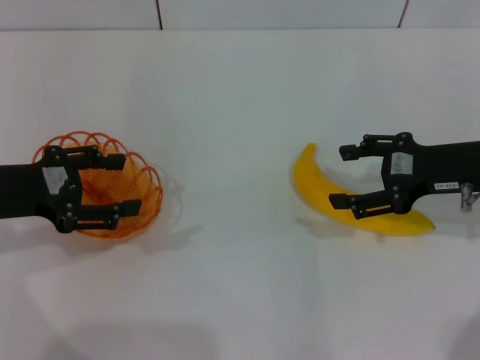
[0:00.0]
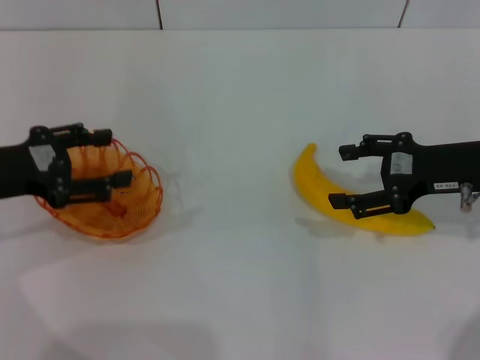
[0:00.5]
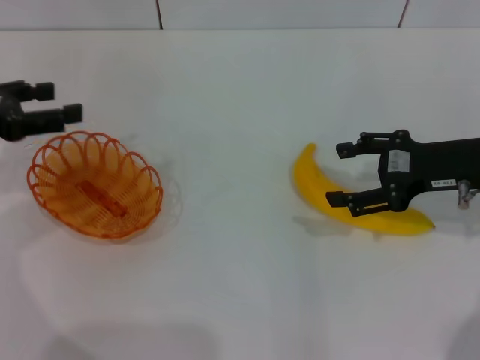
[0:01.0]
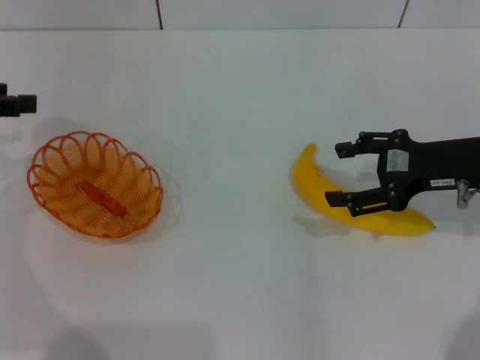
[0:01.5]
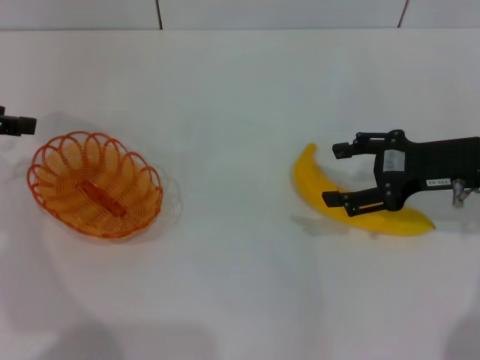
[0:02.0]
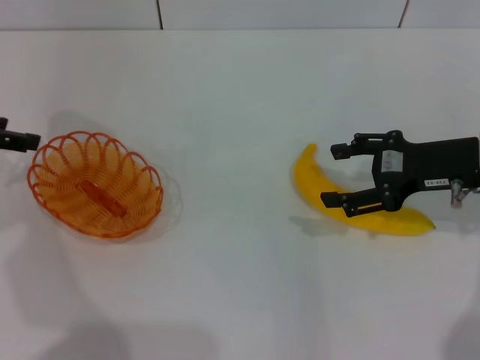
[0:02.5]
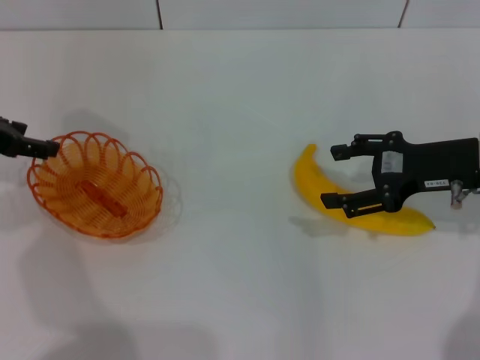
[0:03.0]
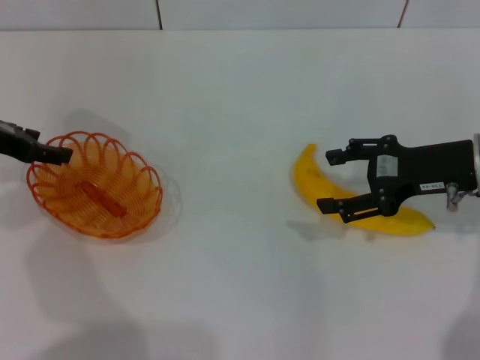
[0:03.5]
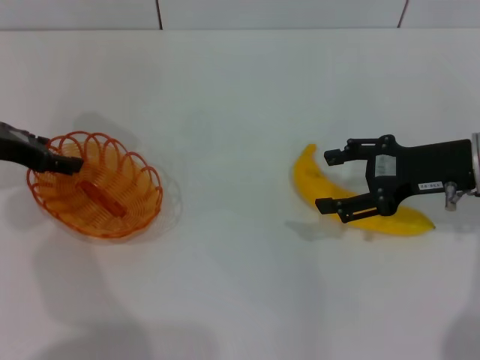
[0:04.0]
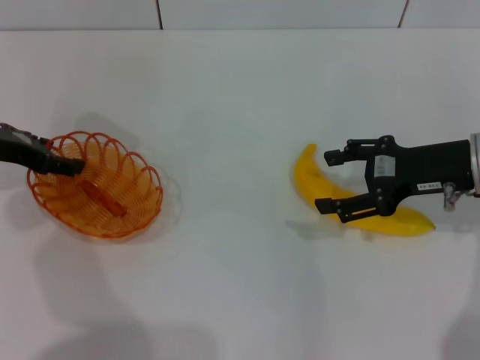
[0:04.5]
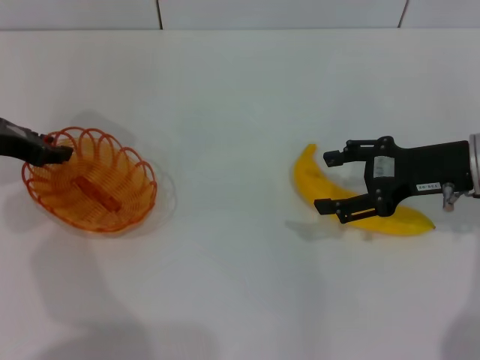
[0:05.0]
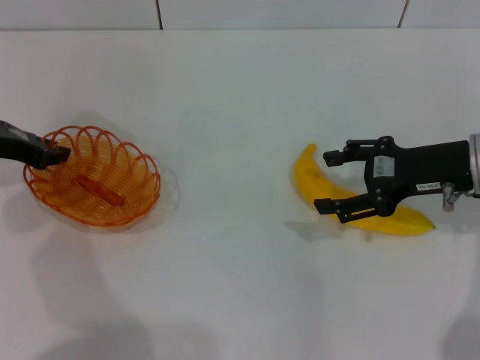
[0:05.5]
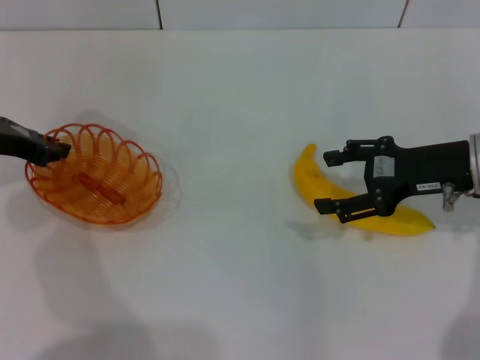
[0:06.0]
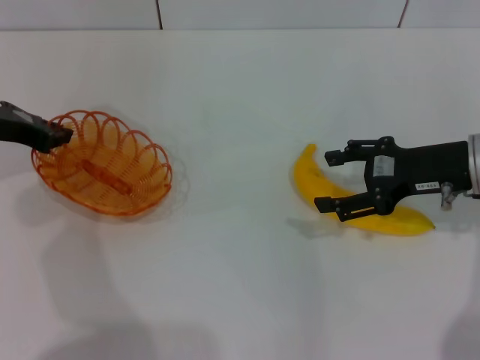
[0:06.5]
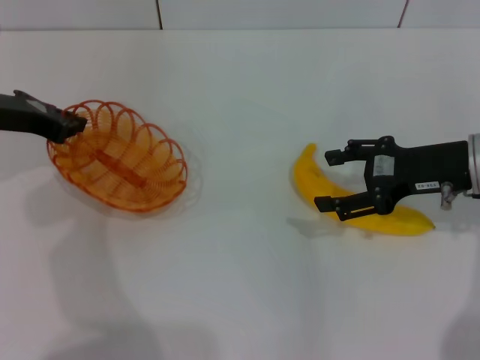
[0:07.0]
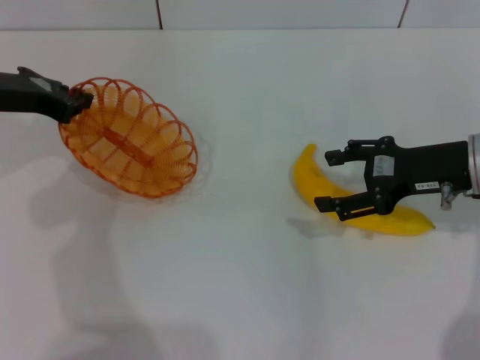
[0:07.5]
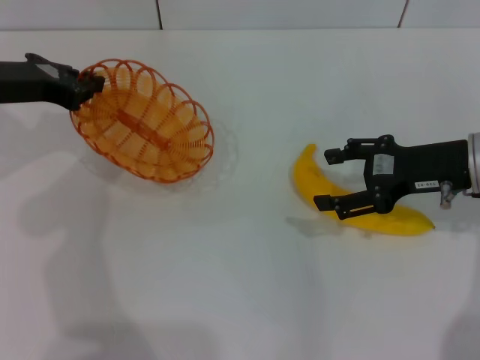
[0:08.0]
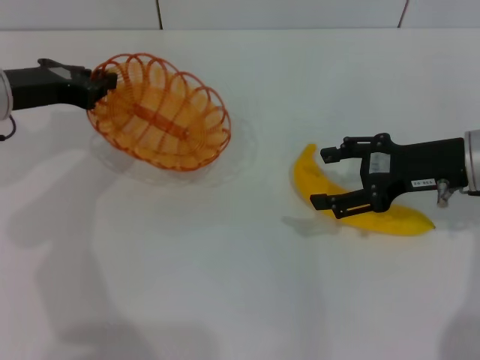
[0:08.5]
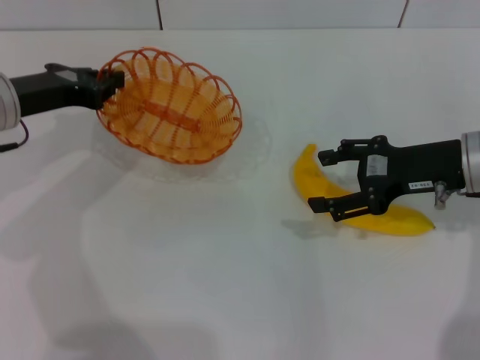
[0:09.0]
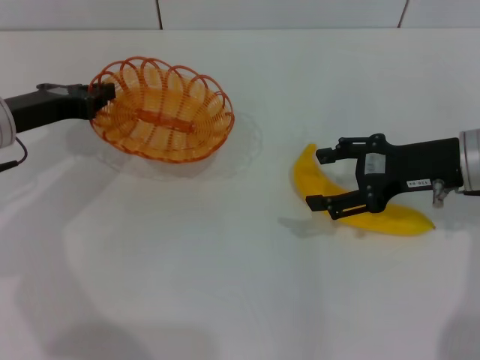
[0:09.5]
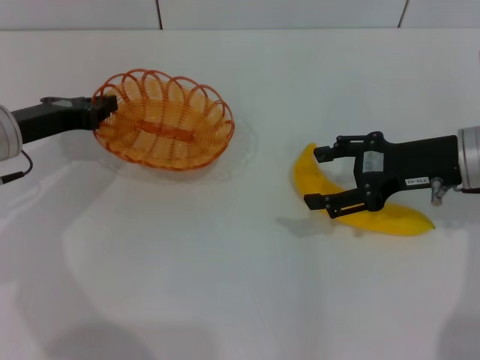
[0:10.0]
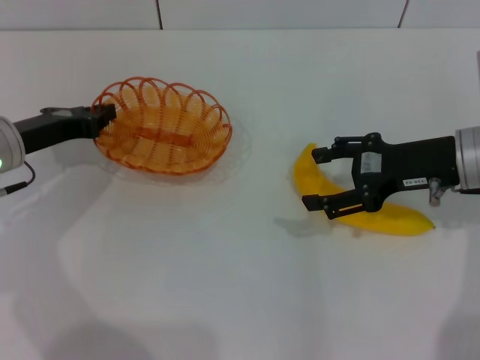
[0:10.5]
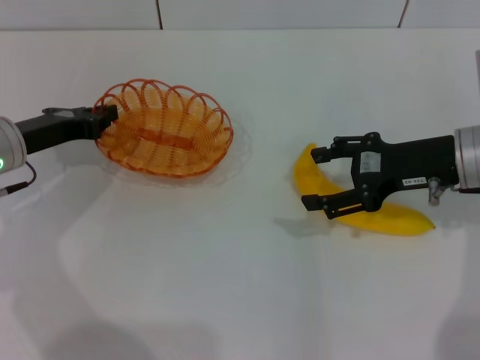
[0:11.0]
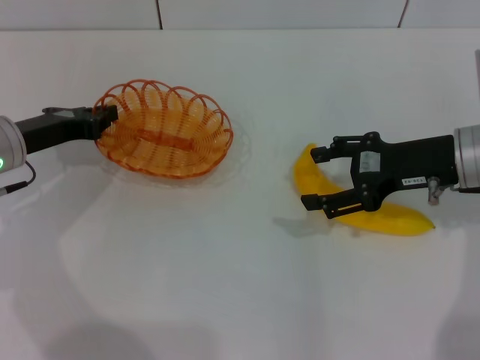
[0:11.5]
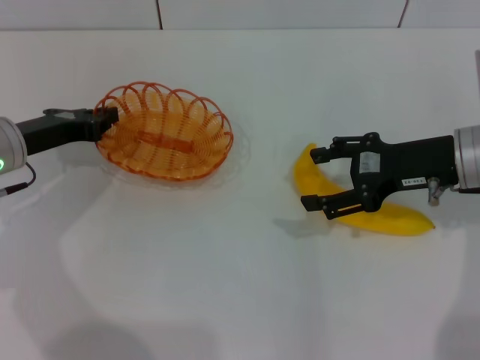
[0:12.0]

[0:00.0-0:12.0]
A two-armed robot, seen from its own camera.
Step, 0:00.0 to 0:05.5: Pick up the basket with the left gripper.
0:00.0 to 0:02.0: The left gripper is displaced upward, to the left and forward by some 10 cm.
0:02.0 to 0:04.0: The left gripper travels downward and to the right by about 10 cm.
0:04.0 to 0:06.0: The left gripper closes up.
0:06.0 to 0:08.0: There are only small adjustments of the grippers.
0:08.0 to 0:10.0: The left gripper moves downward, about 5 cm.
0:10.0 to 0:12.0: There are only small adjustments of the grippers.

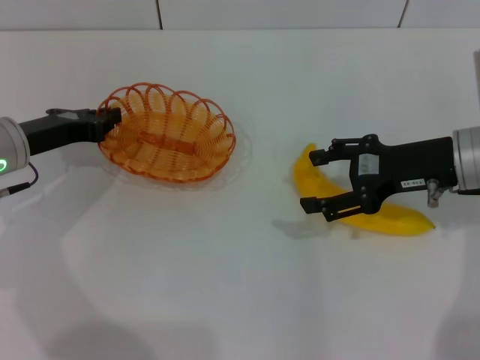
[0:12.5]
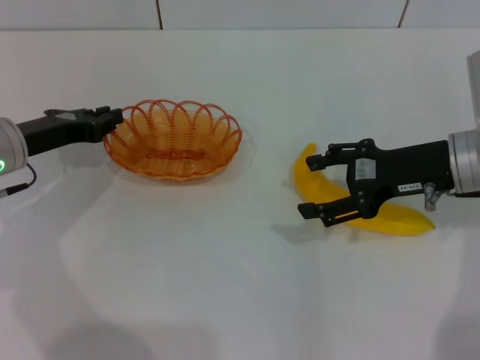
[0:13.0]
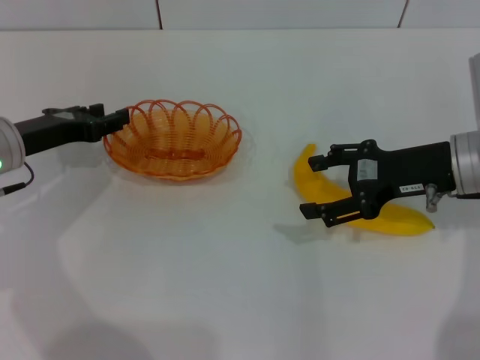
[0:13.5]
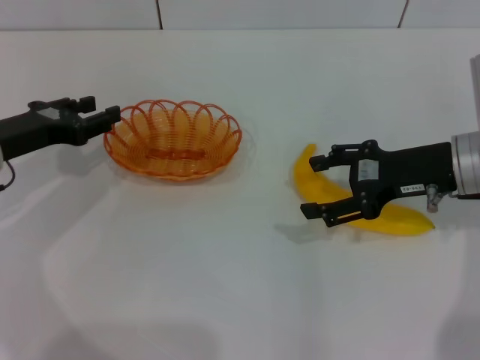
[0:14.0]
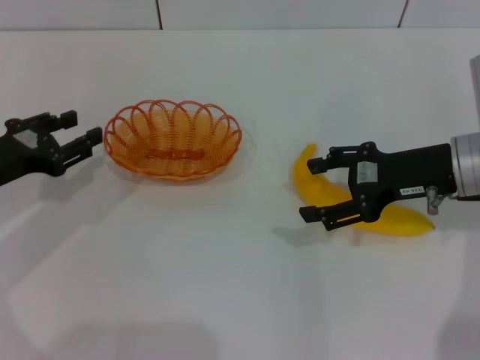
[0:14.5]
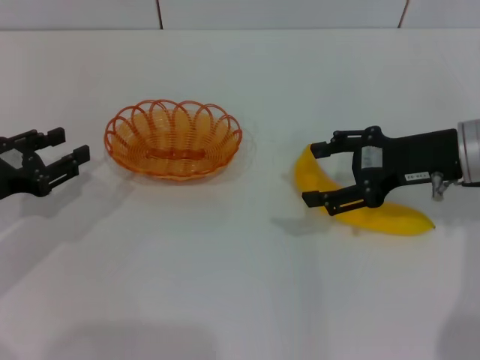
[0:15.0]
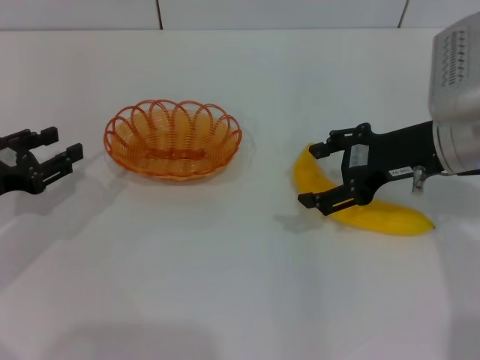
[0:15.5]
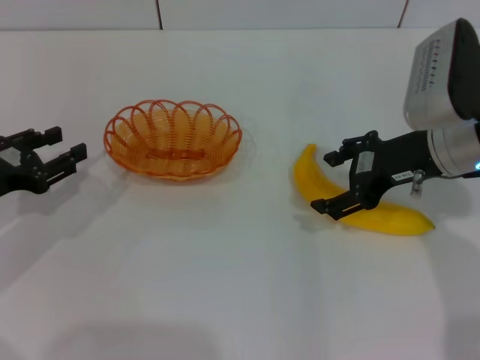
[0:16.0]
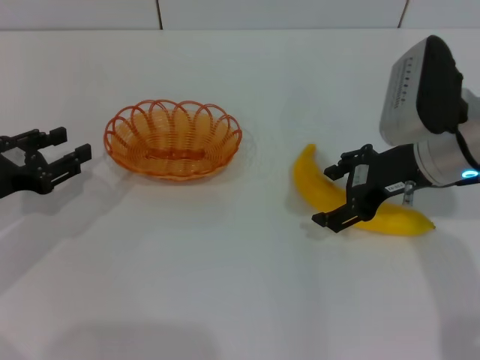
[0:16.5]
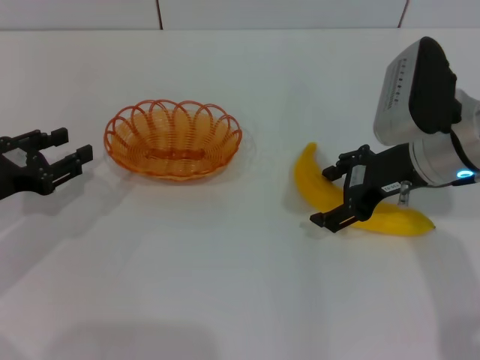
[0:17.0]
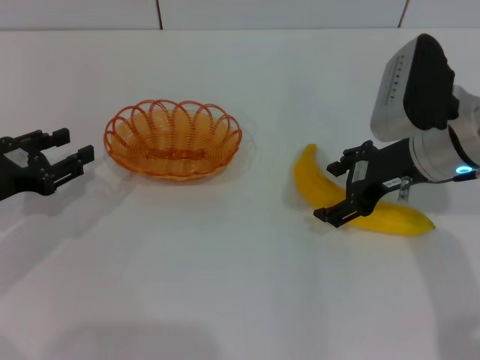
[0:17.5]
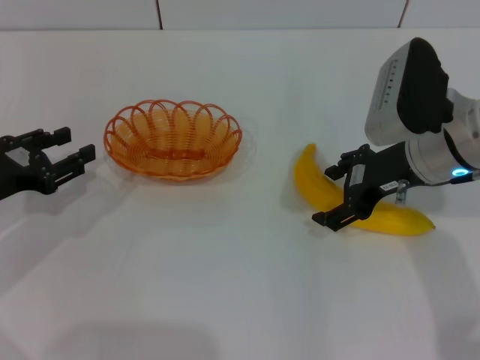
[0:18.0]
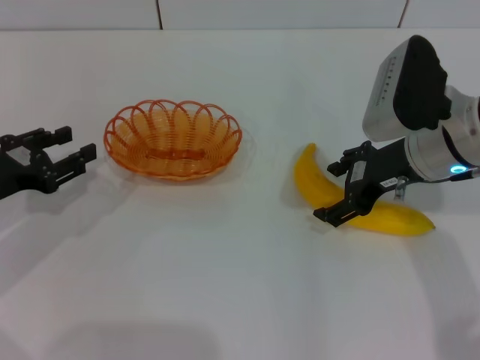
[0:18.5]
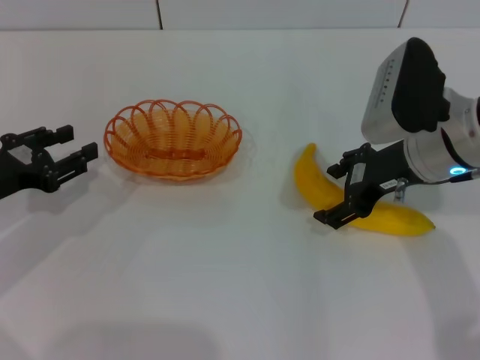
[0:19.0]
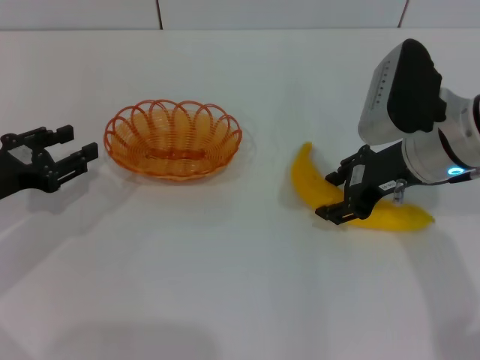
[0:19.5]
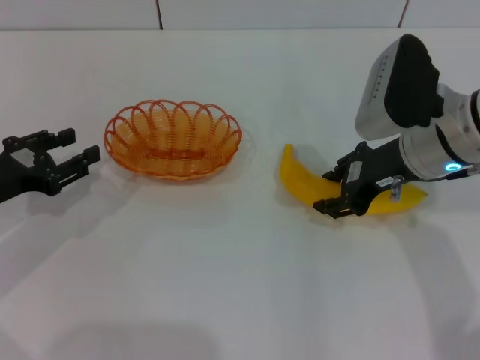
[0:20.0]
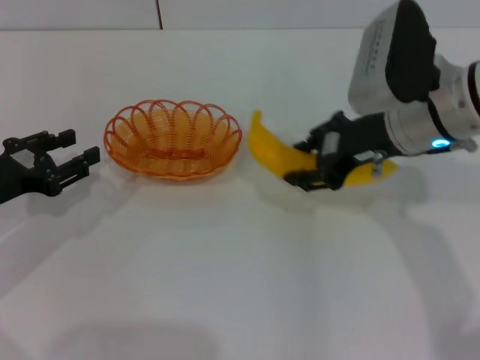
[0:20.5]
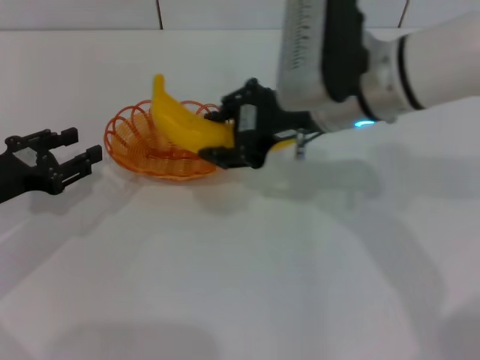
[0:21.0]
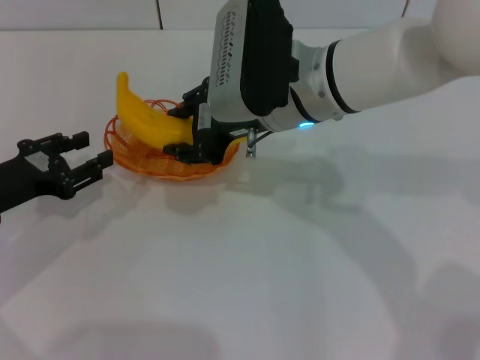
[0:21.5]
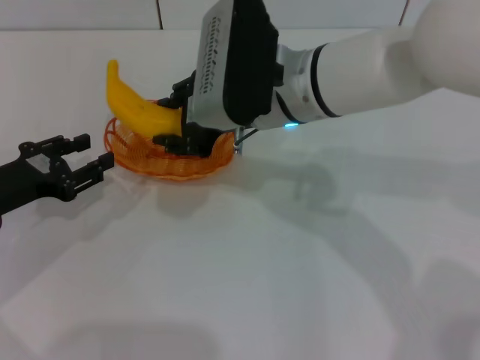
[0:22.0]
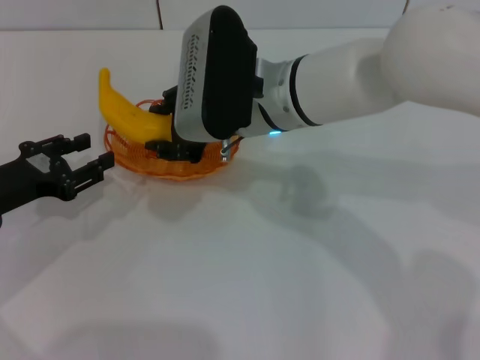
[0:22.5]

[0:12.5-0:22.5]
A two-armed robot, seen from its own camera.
Step, 0:14.0 to 0:20.5: Pick up the banana with the right gripper.
0:12.5 to 0:14.5: The left gripper is displaced backward by roughly 5 cm, and opens its fingers.
0:16.5 to 0:18.5: The two grippers keep their place.
0:18.5 to 0:20.5: The right gripper closes.
0:20.5 to 0:22.5: The right gripper is displaced to the left by roughly 15 cm.

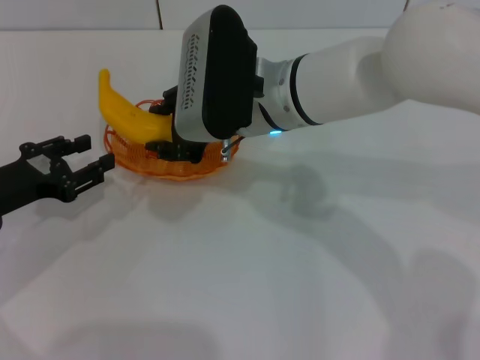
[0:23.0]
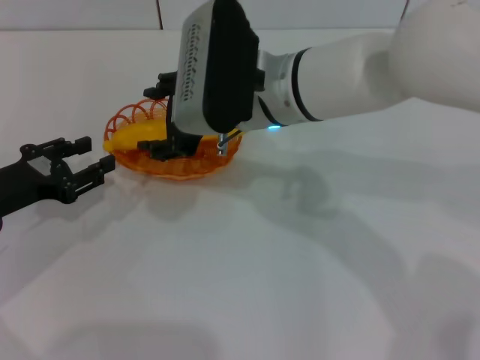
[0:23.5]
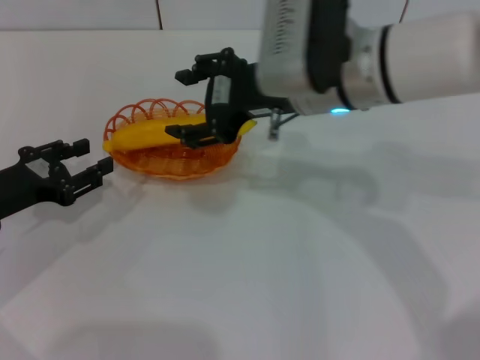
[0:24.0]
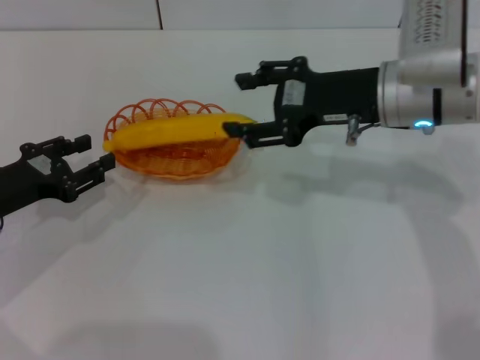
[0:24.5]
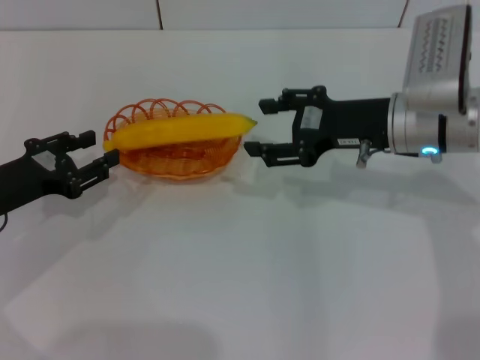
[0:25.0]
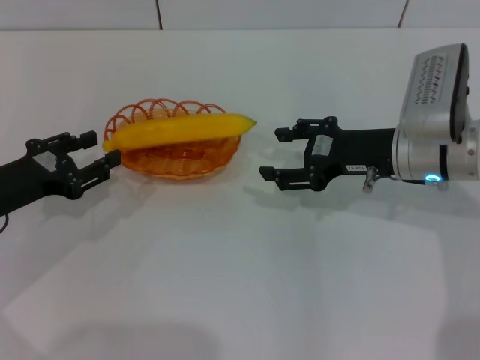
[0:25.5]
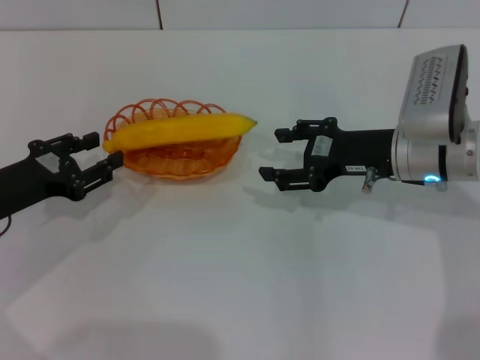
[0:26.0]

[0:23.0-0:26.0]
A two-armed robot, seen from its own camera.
0:23.0 to 0:24.5: The right gripper moves to the right, some 15 cm, and opens up.
0:24.5 to 0:26.0: The right gripper moves downward, roughly 5 cm.

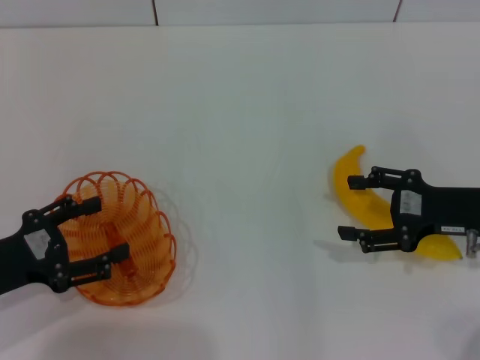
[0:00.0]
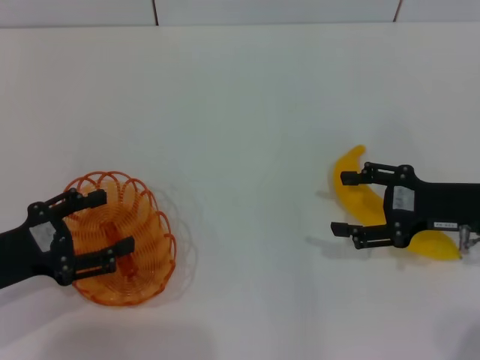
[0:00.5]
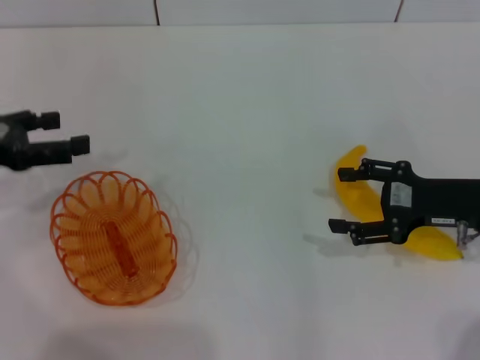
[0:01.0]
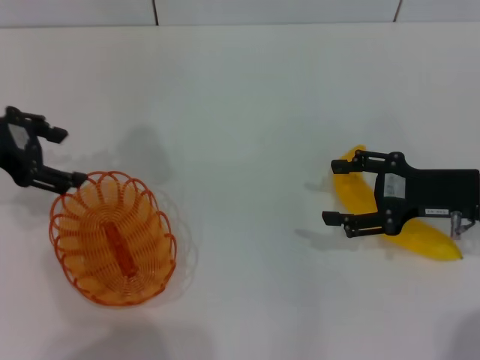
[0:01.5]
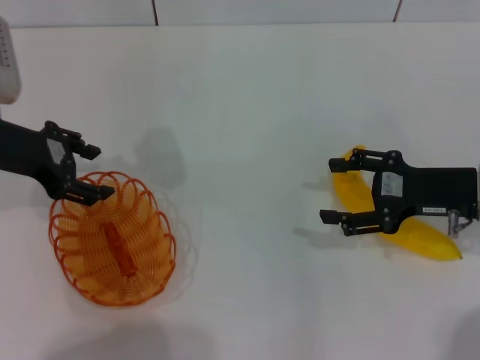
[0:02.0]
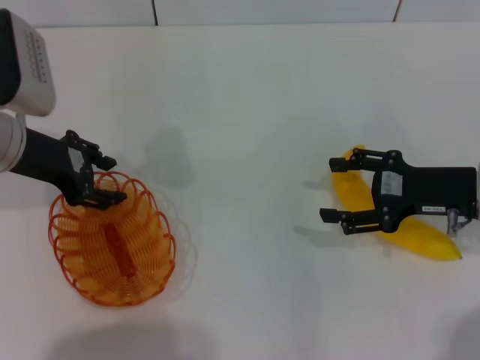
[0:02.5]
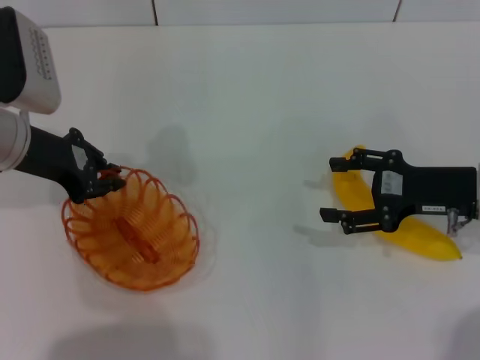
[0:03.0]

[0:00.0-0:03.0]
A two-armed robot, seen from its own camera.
0:00.0 to 0:01.5: The left gripper shifts some 15 cm forward and upward.
0:01.5 to 0:03.0: The left gripper ends up some 5 cm from where it was, and closes up.
